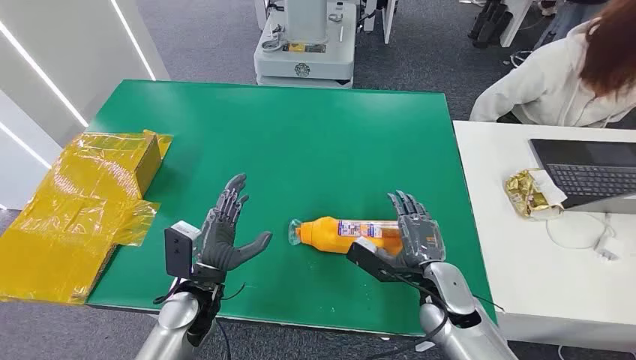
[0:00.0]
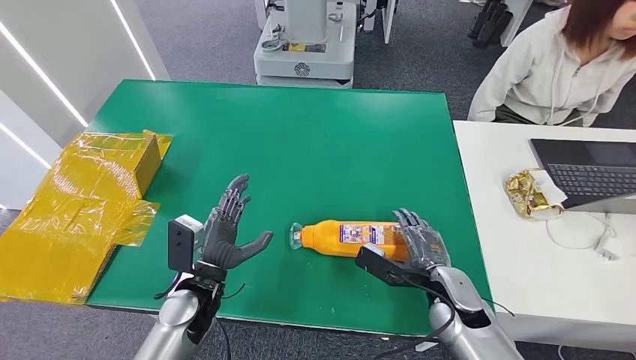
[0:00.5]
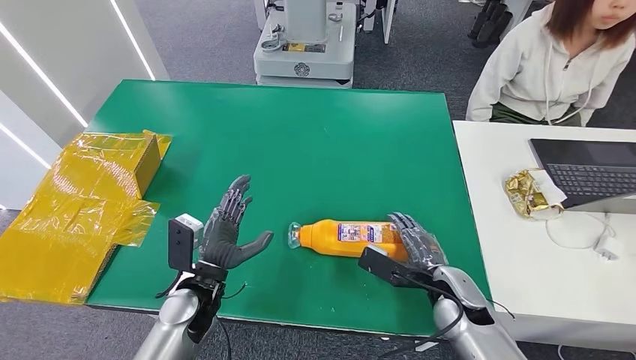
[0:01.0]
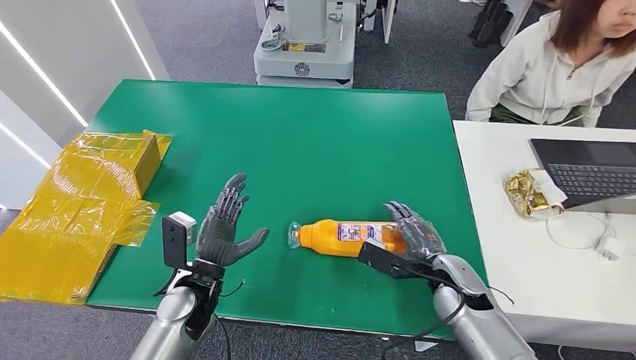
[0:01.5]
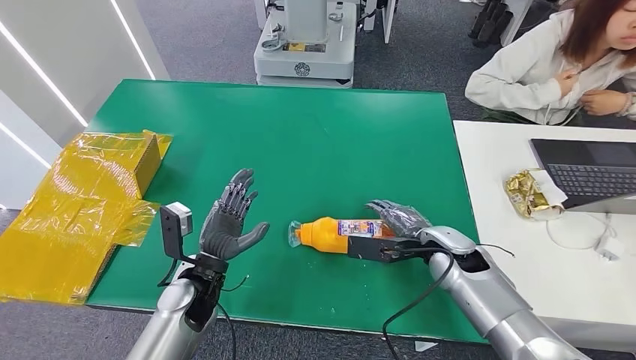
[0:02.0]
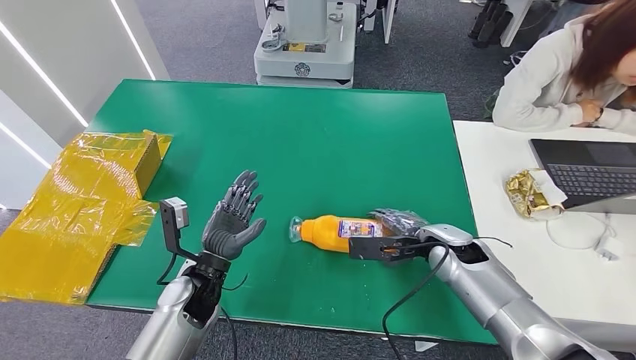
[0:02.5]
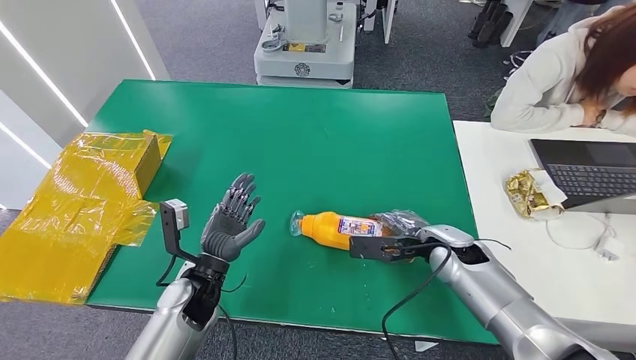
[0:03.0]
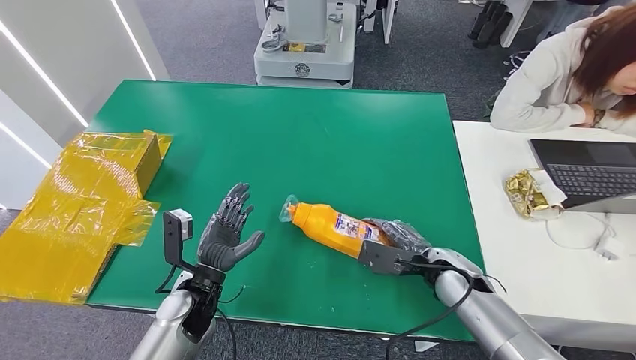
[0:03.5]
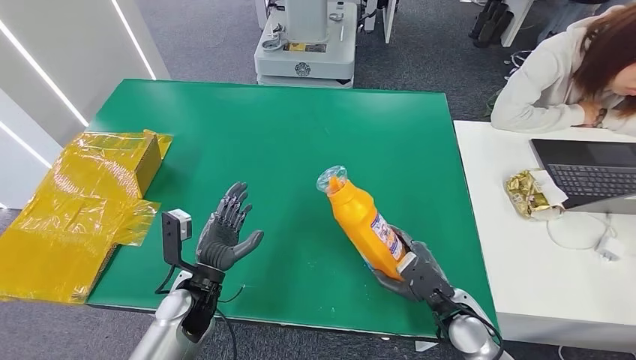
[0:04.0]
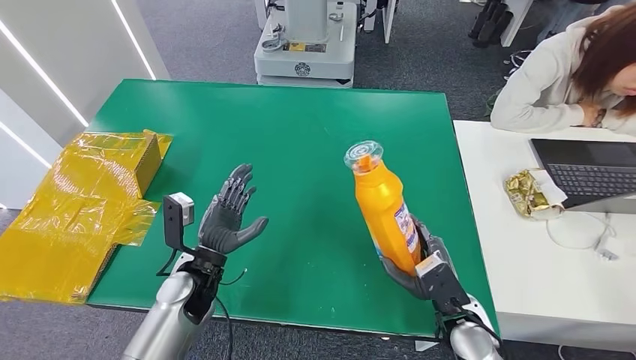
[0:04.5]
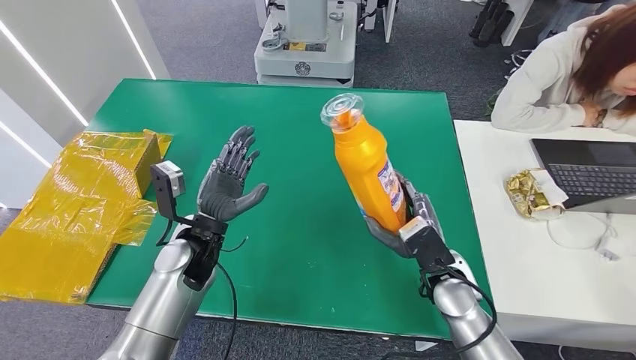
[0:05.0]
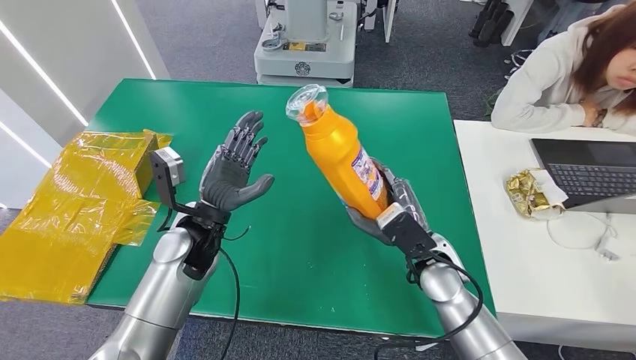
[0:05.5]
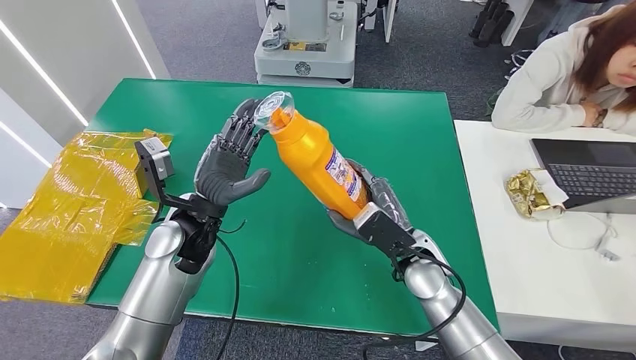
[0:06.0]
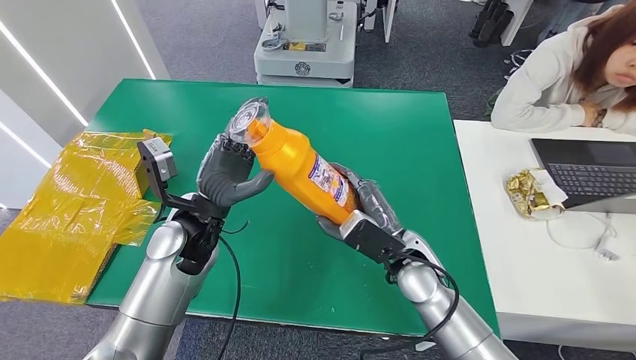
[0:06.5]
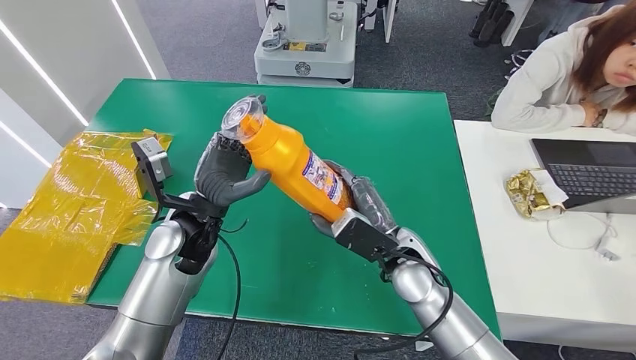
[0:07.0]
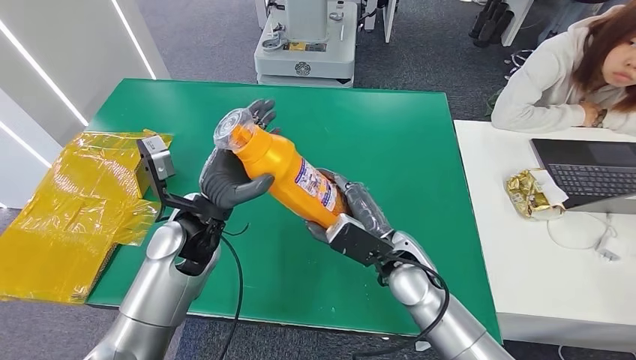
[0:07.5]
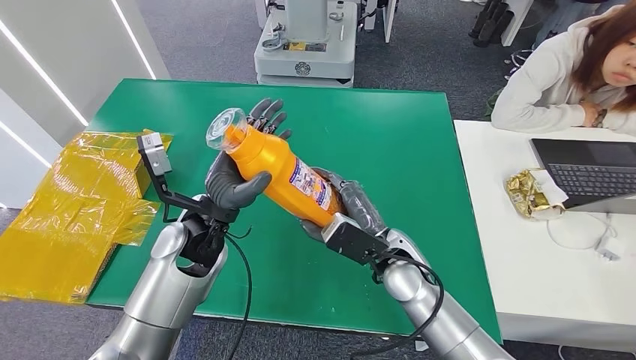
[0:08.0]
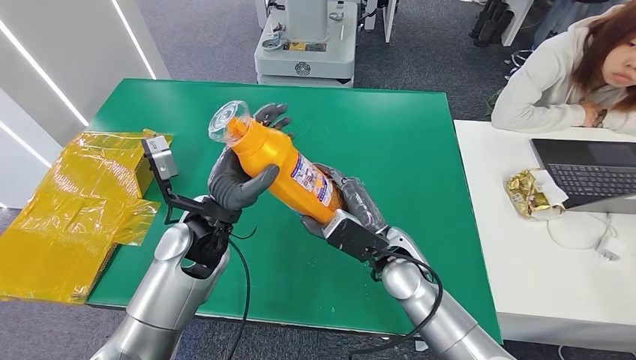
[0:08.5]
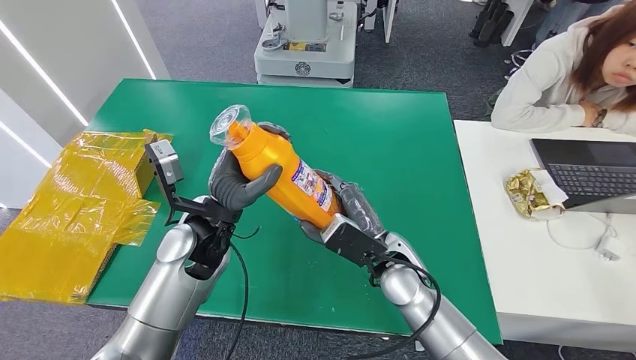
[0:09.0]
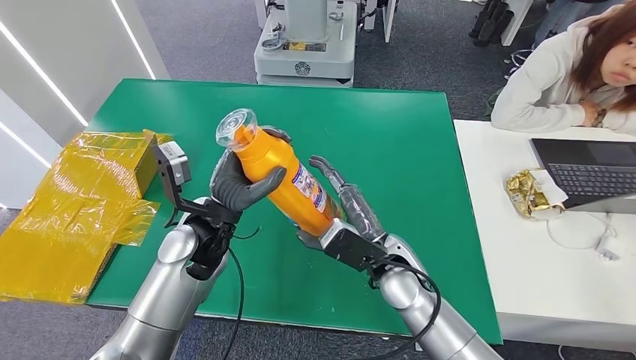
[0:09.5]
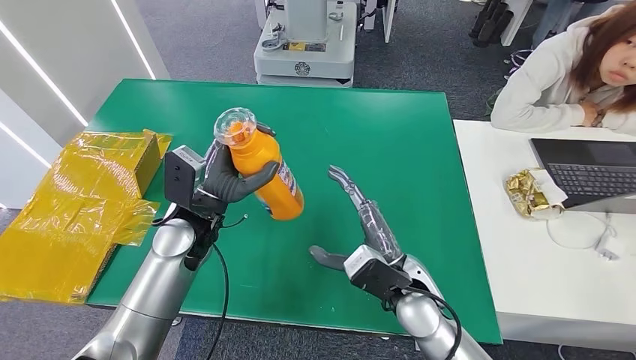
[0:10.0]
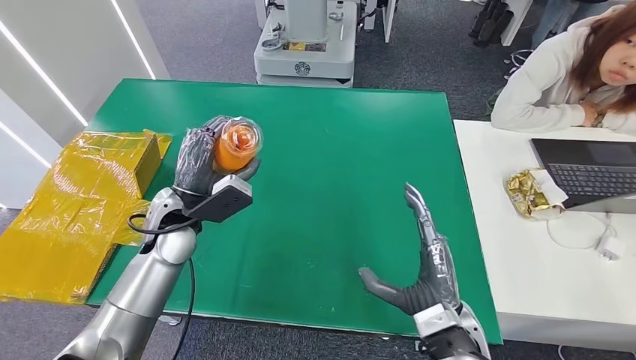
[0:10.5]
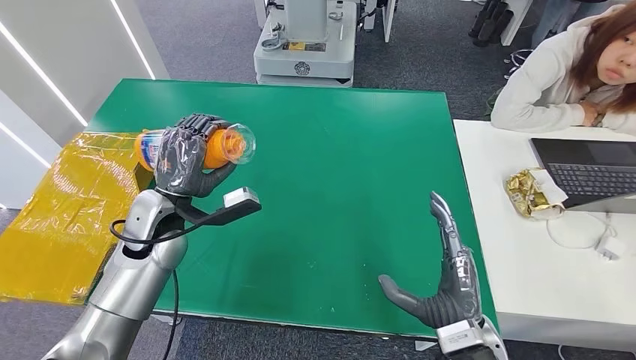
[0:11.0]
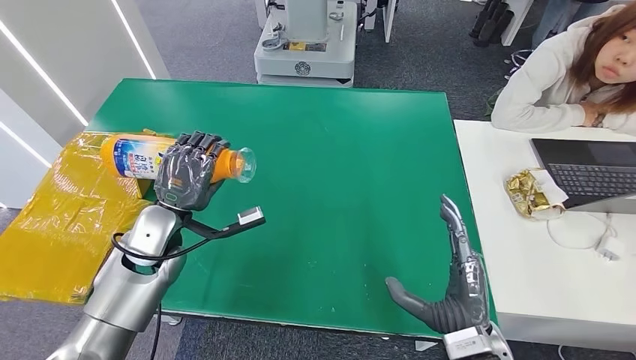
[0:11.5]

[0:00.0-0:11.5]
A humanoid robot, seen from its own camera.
Step, 0:00.0 to 0:04.5: Pick up the bottle from the table.
0:02.0 to 0:04.0: The right hand moves backward and downward, some 15 cm.
0:04.0 to 0:06.0: The right hand goes some 15 cm to the left, upward and forward. Meanwhile the left hand heads upward and forward, covering roughly 15 cm.
0:06.0 to 0:09.5: The hands make only small movements.
0:09.5 to 0:11.5: The left hand shifts roughly 10 cm to the left, while the right hand travels backward and to the right by approximately 15 cm.

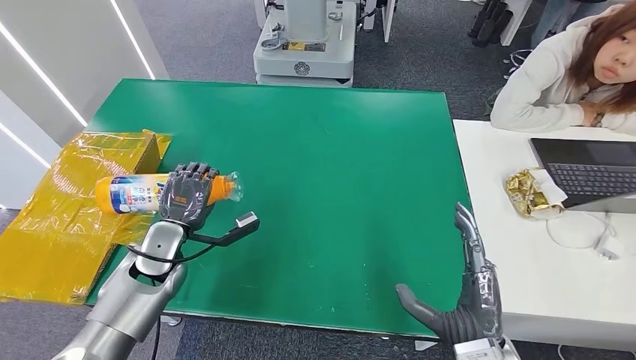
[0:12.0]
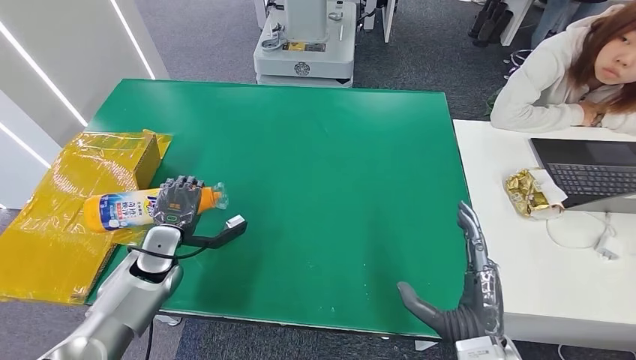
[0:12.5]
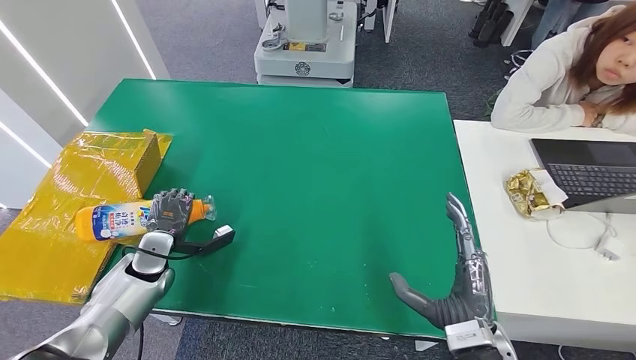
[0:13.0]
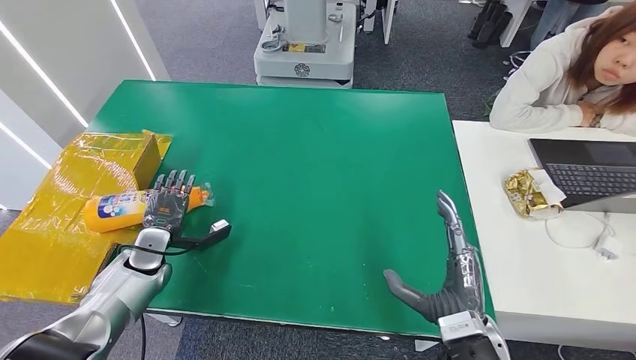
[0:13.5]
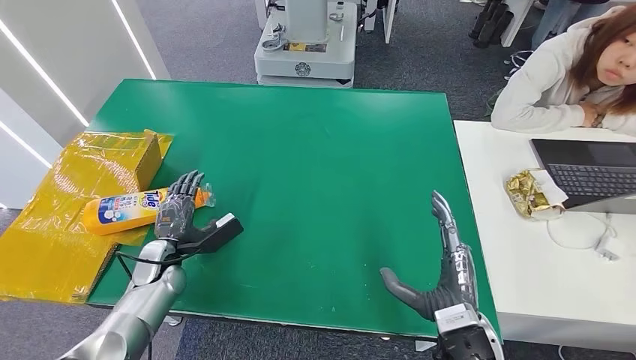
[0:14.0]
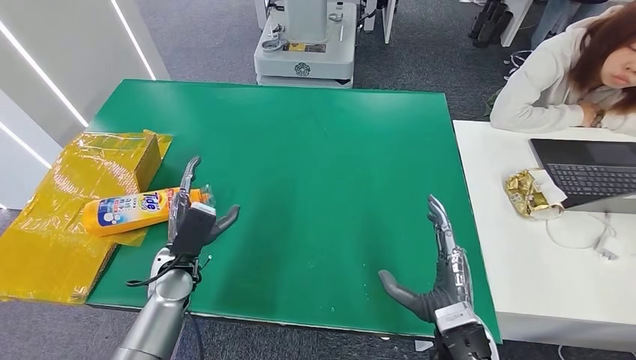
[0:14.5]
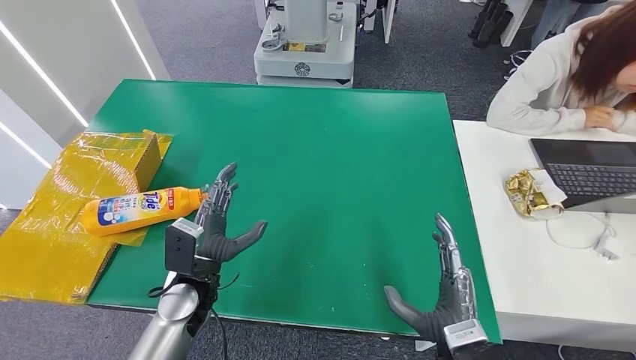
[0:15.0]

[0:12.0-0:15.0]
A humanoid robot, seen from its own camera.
Step, 0:12.0 to 0:15.0: Turn the bottle to the front side.
0:12.0 to 0:13.5: The left hand shifts roughly 10 cm to the left and downward.
0:13.5 to 0:15.0: The left hand moves to the right and backward, roughly 15 cm.
